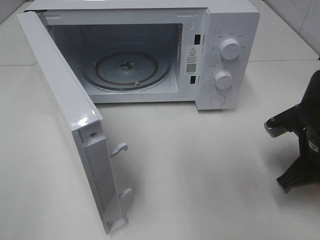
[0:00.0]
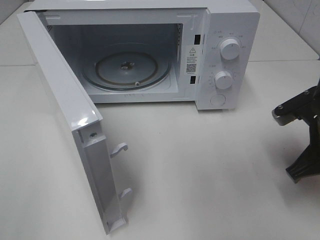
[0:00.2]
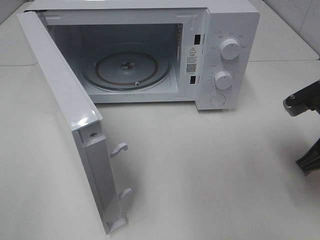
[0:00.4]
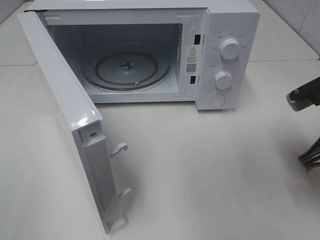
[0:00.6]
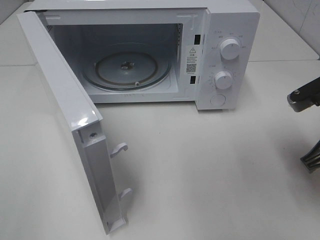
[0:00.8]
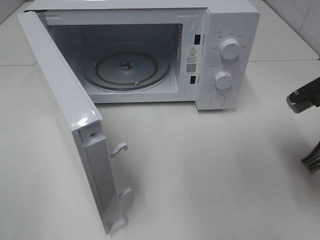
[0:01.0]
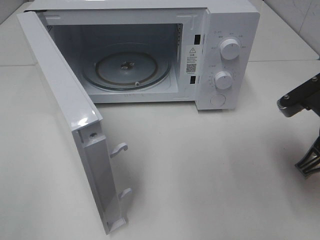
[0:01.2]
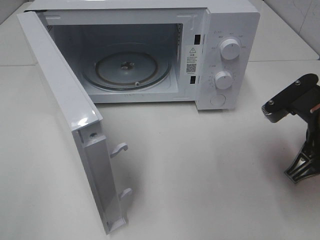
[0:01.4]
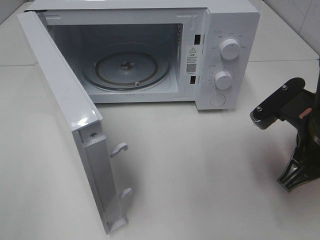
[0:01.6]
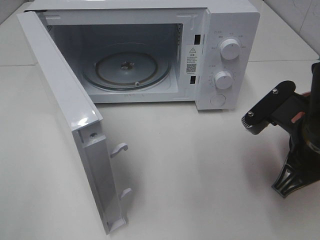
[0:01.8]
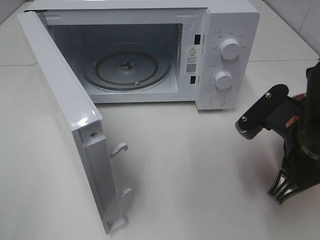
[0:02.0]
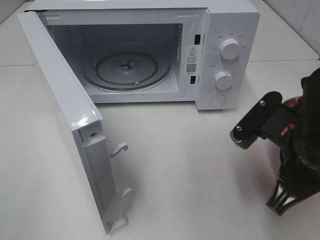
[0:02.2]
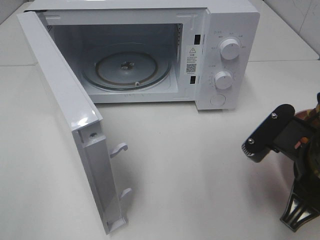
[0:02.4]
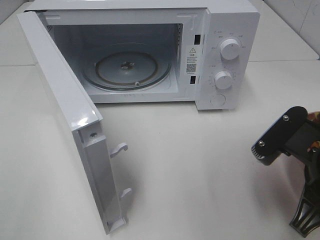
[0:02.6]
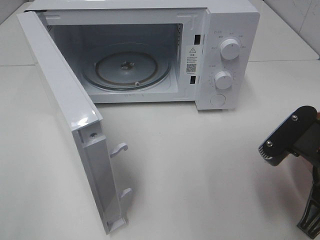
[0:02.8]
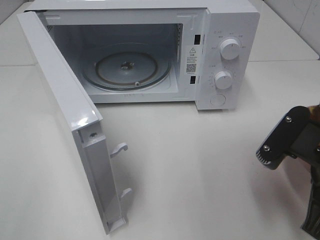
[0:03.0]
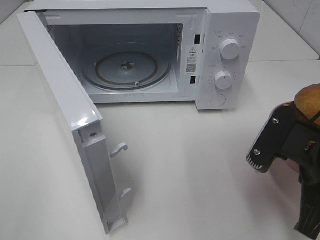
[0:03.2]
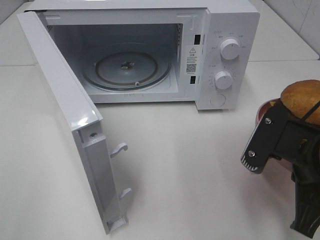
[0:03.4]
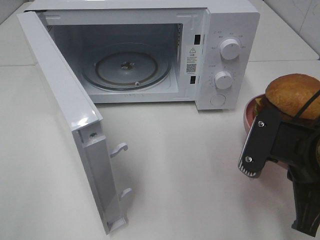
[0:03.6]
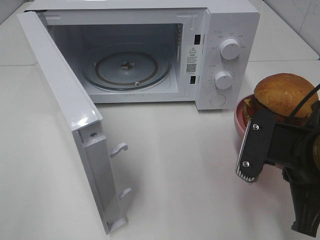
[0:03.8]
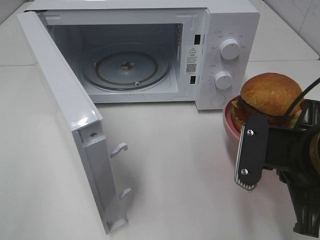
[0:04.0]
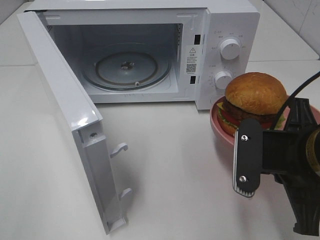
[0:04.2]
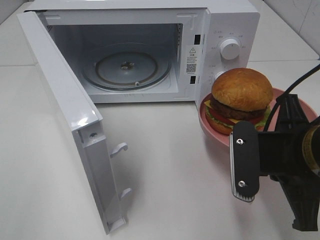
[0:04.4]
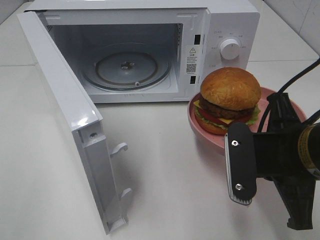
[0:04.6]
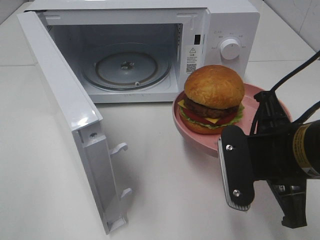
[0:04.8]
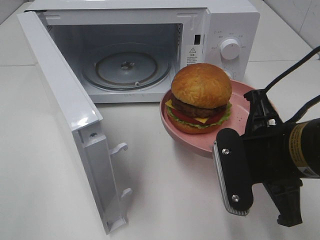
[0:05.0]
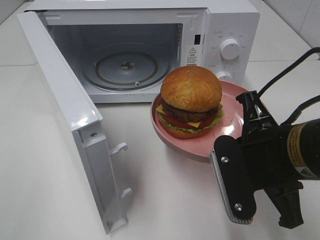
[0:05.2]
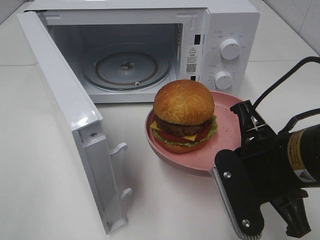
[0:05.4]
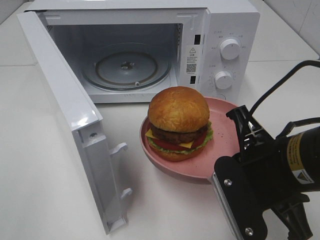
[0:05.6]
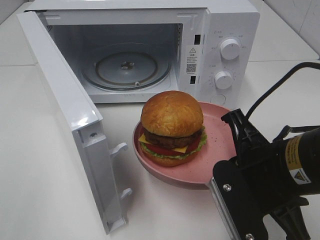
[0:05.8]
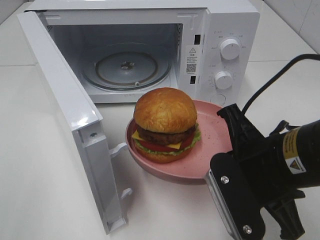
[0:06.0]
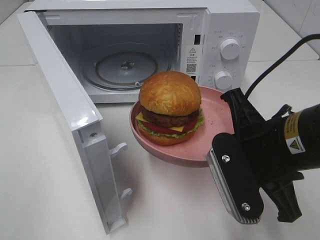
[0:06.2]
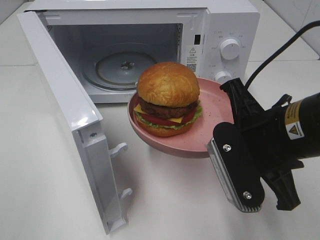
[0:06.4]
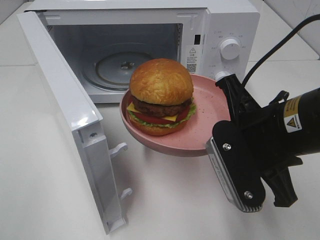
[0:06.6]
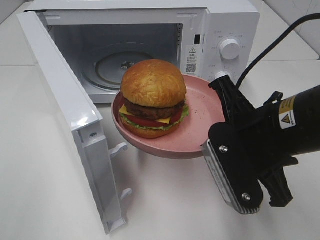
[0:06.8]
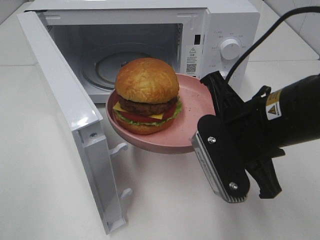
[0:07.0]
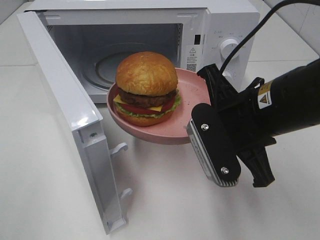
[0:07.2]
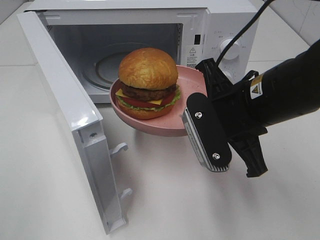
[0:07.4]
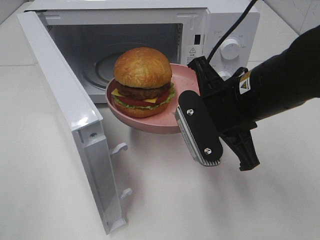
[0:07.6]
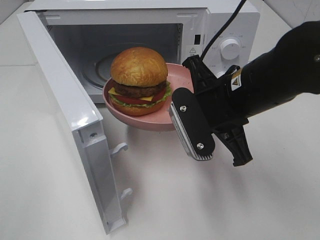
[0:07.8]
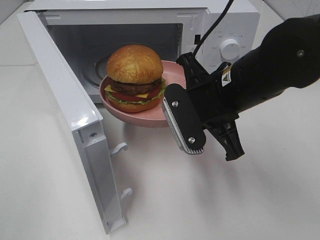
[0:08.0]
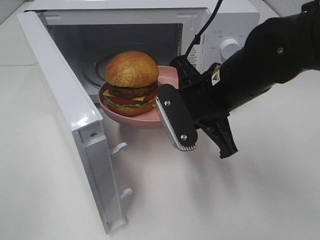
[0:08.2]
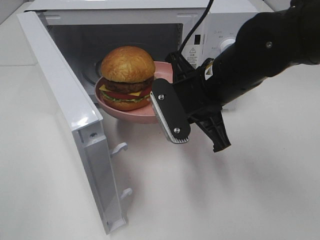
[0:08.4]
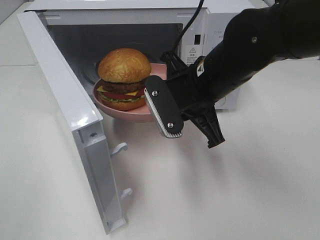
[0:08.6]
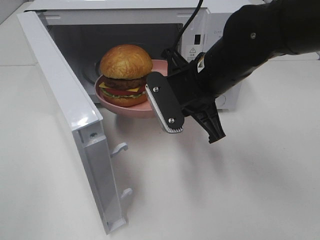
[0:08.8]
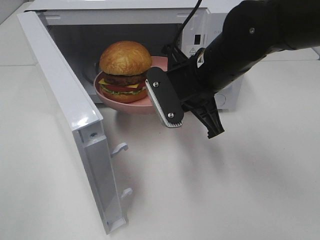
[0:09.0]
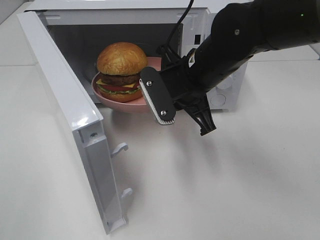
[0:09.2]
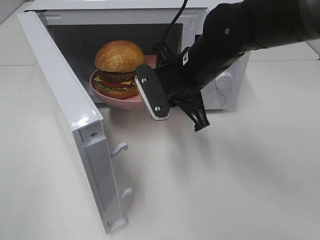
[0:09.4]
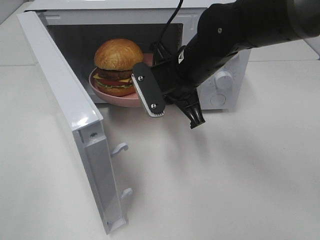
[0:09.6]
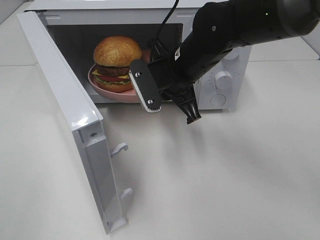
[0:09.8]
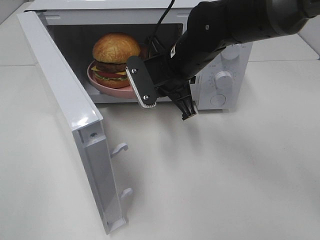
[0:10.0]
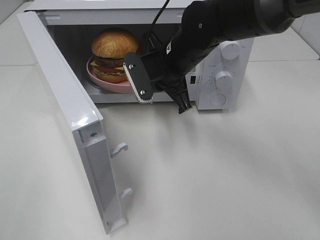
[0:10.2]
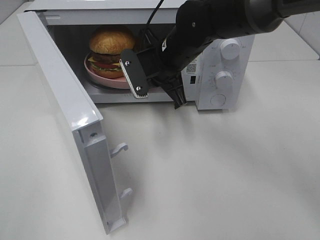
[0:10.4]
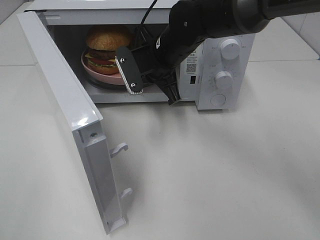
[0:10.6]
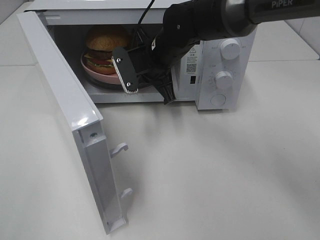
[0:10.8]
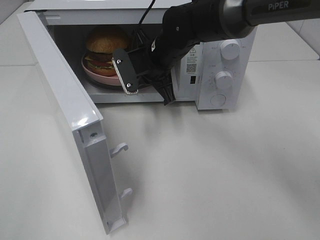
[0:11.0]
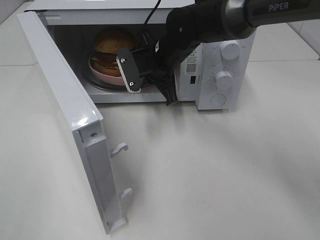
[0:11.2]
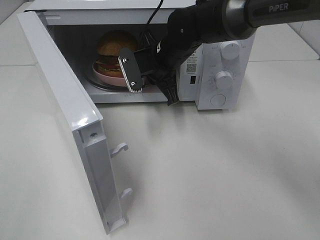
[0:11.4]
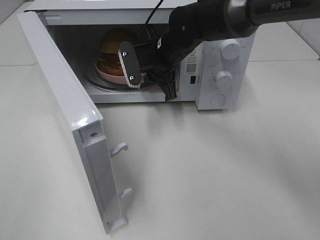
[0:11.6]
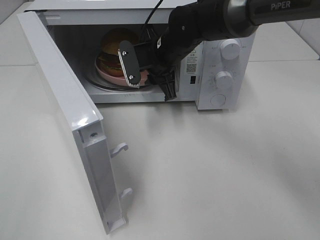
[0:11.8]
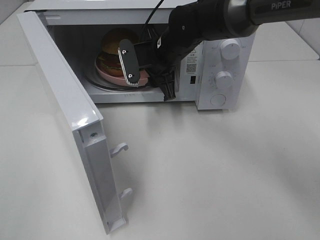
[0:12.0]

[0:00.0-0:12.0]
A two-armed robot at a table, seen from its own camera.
Task of the whole recording: Heat the burger.
Step, 0:00.0 to 0:11.6: Right hand: place the plate in the microwave.
0:00.0 to 0:01.6: The right gripper travels upward by some 5 cm.
0:01.6 to 0:03.0: There are only small adjustments of the grippers.
0:06.0 to 0:07.6: The right gripper travels forward by some 10 cm.
0:07.6 to 0:09.0: The right gripper travels forward by roughly 5 cm.
0:09.0 to 0:10.4: The right gripper moves forward, some 10 cm.
0:10.4 to 0:12.0: The right gripper opens up.

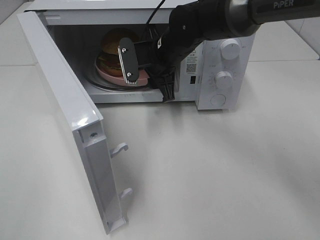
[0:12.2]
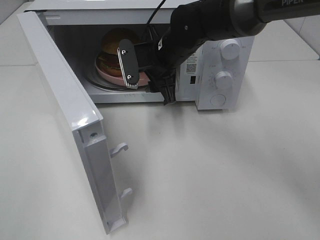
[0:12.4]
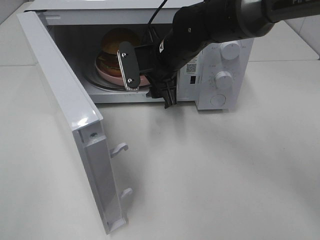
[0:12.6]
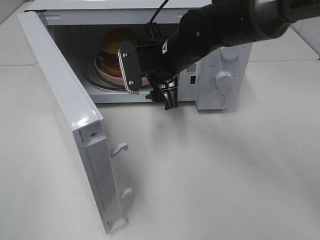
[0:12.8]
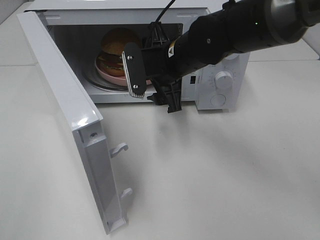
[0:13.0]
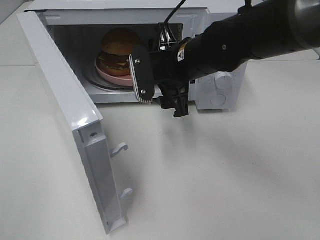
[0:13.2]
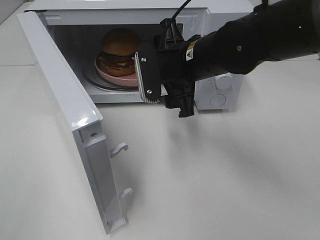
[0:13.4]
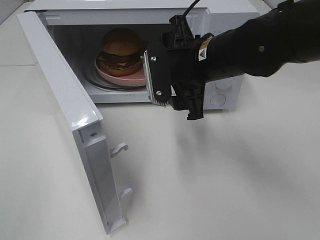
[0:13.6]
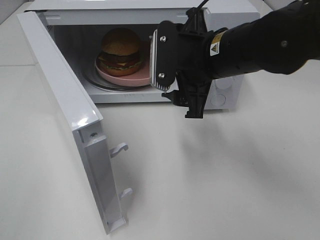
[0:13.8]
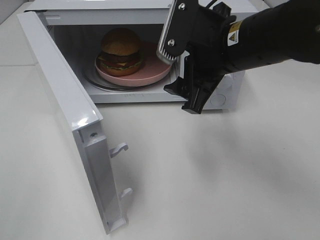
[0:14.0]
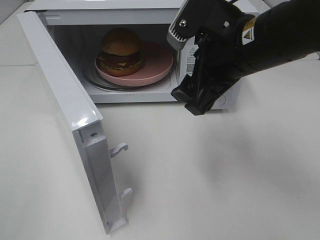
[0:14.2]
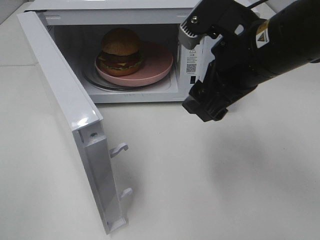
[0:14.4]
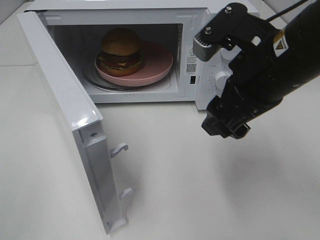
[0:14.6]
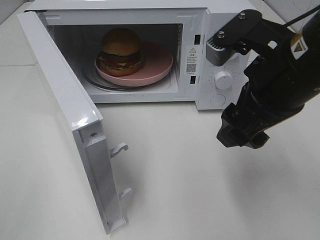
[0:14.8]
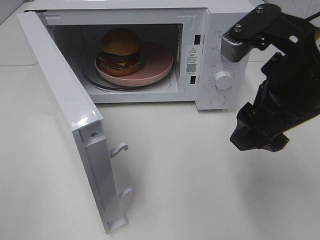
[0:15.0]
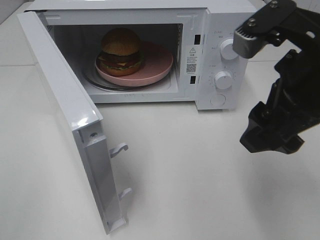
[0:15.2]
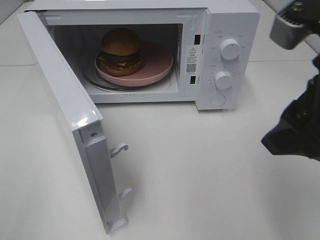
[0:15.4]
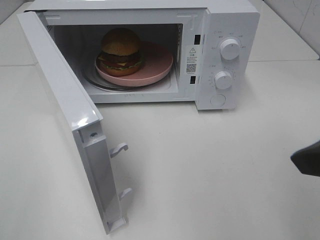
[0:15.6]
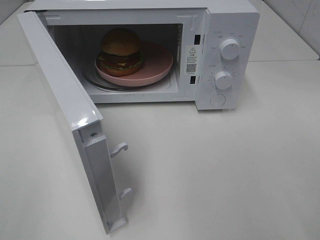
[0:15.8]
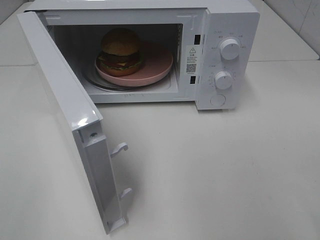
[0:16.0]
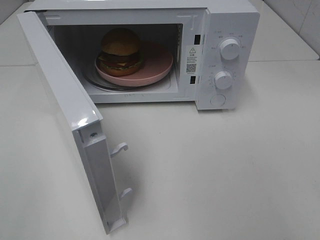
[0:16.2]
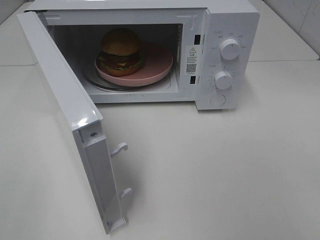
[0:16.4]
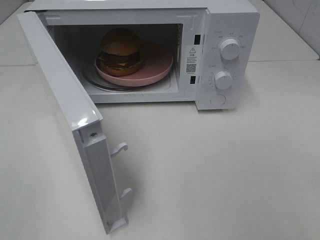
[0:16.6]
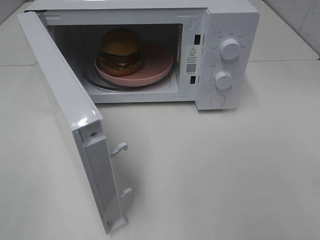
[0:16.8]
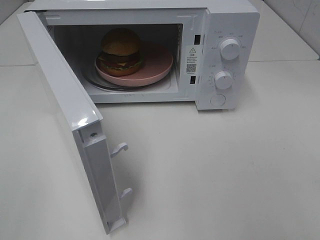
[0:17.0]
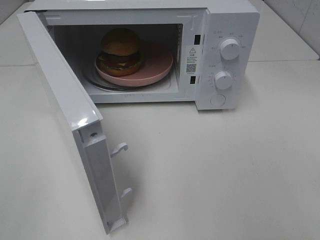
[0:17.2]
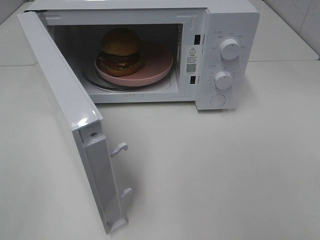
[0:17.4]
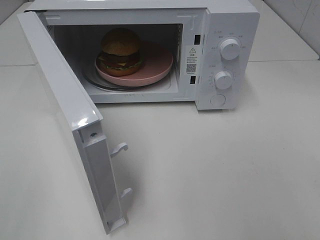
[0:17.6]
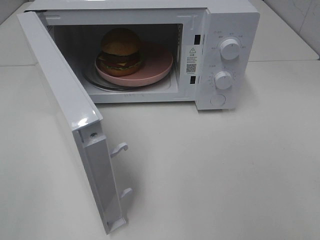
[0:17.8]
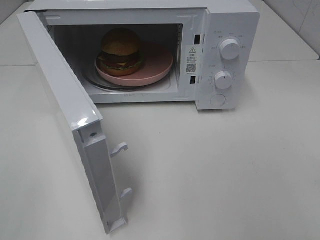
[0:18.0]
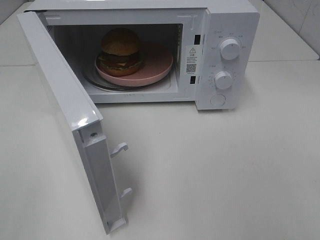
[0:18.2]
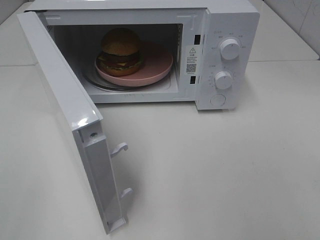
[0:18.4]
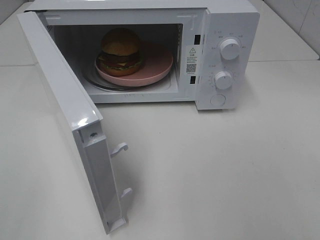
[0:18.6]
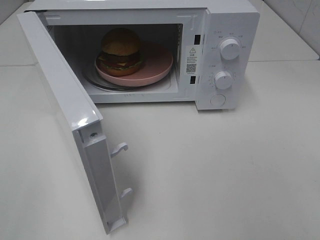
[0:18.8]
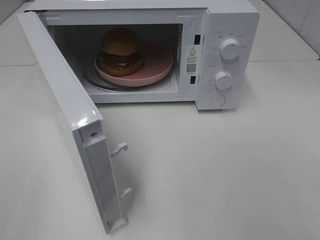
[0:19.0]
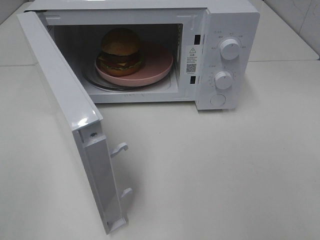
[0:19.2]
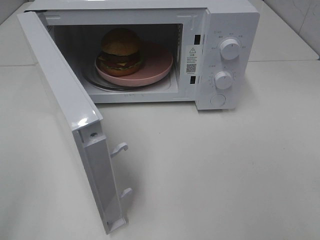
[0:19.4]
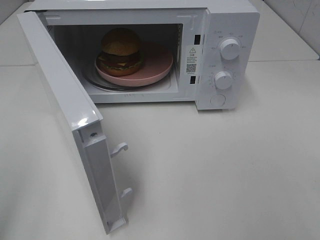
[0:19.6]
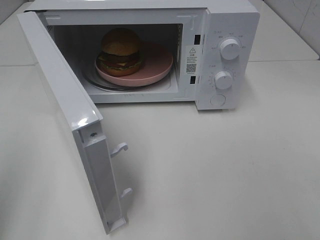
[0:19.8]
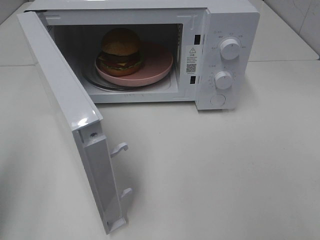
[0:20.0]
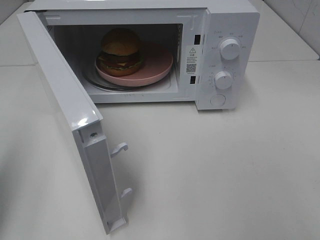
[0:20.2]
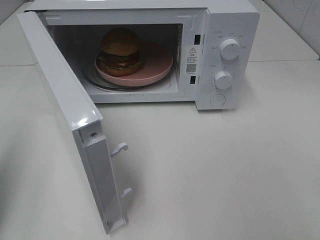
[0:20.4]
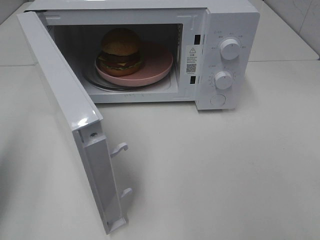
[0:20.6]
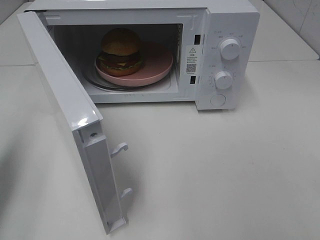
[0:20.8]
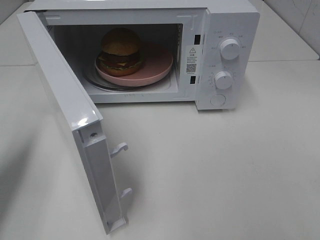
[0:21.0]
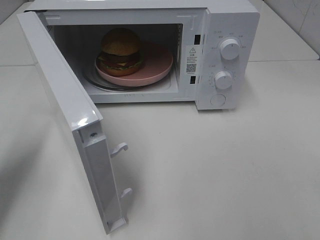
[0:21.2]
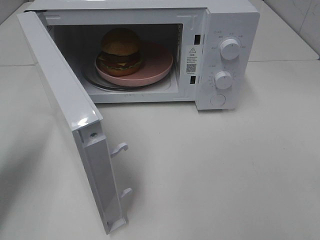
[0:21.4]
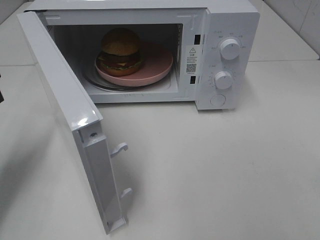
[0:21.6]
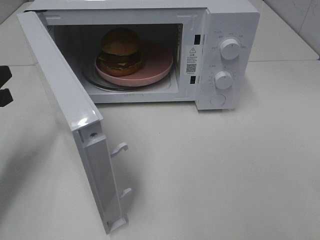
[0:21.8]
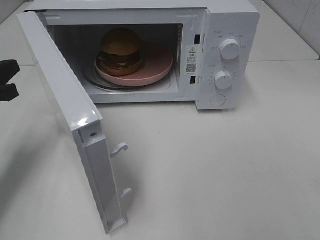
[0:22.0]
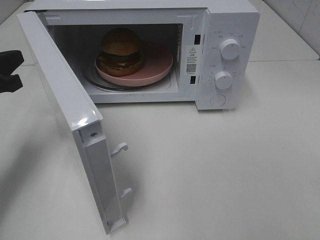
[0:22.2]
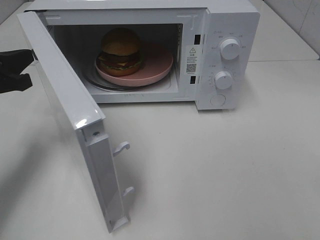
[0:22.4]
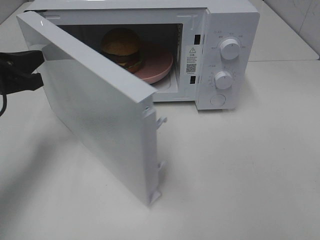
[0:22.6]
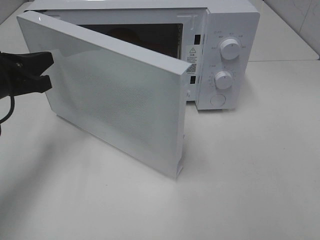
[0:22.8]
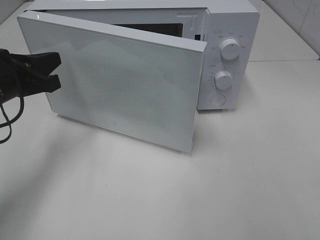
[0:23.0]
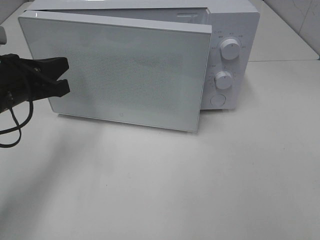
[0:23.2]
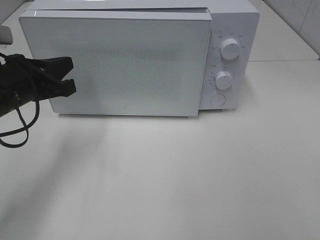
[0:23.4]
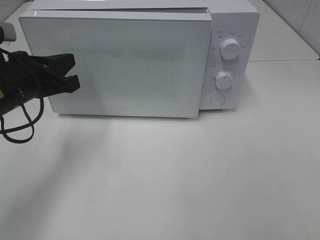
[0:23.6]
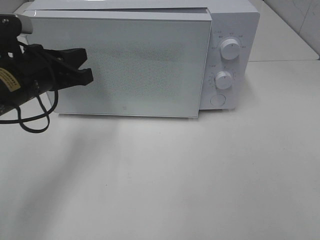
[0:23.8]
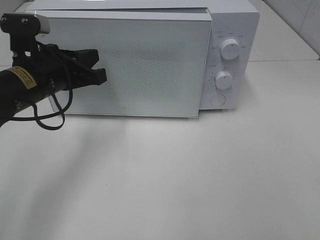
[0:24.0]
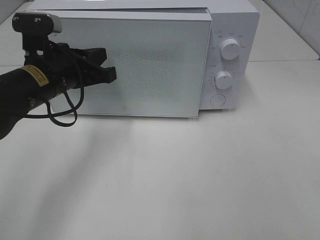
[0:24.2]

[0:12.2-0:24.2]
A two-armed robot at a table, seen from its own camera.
Task of the whole recording: Heat the burger.
0:12.2 to 0:13.8: The right gripper travels backward, upward and to the right by roughly 15 cm.
0:13.8 to 0:15.2: The right gripper heads backward, to the right and upward, covering some 15 cm.
0:15.2 to 0:16.6: The right gripper is displaced backward and to the right by roughly 20 cm.
0:19.8 to 0:21.2: The left gripper is displaced forward and downward by approximately 15 cm.
0:21.2 to 0:22.6: The left gripper is displaced forward and to the right by roughly 10 cm.
0:22.6 to 0:24.2: The left gripper moves to the right, approximately 10 cm.
